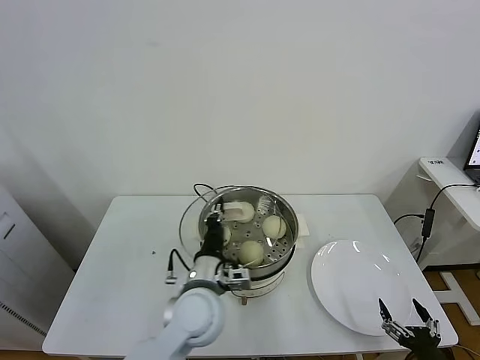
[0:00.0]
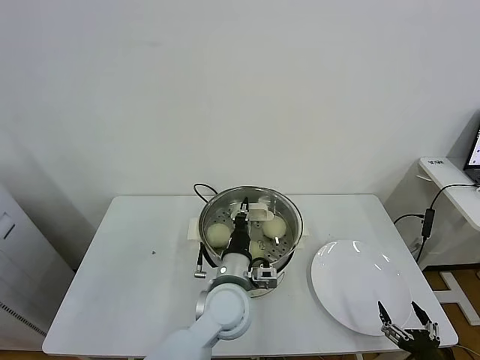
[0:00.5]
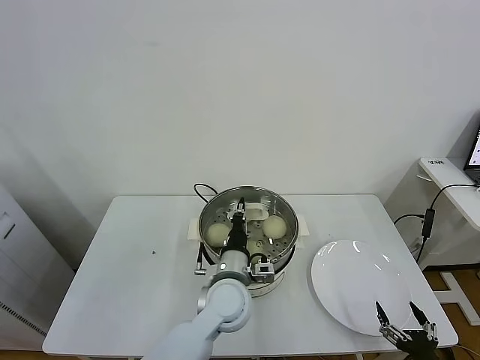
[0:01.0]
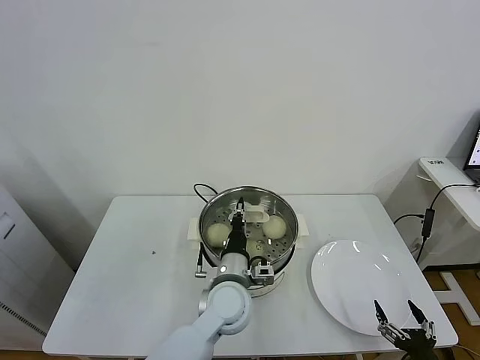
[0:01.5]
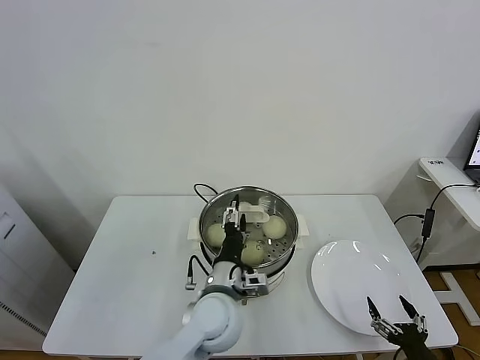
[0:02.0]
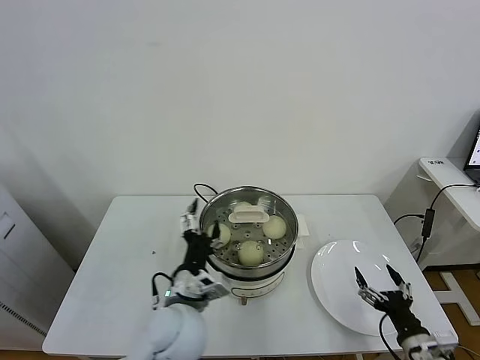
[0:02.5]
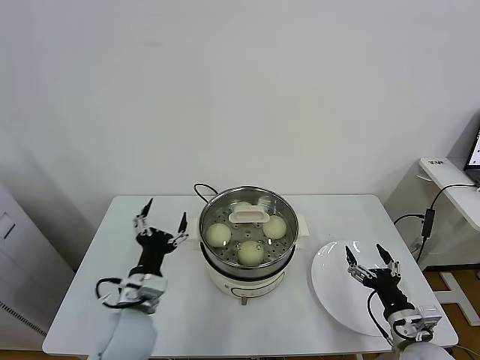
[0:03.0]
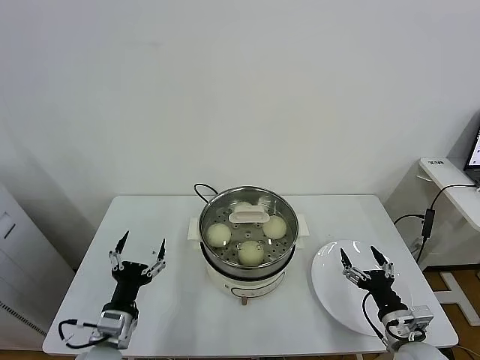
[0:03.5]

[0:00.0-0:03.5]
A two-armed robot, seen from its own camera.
Task of the whole recording: take steamed baozi put them in steamer.
Step, 0:00.0 to 0:02.0: Place the pot lid on the steamer with left gripper.
0:00.0 to 0:02.0: The left gripper opens up.
0:02.0 to 0:03.5: The right gripper shifts approximately 10 cm forward. Meanwhile the left gripper goes approximately 20 cm to the left.
